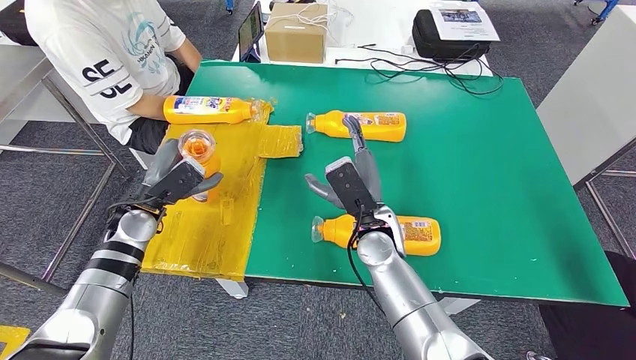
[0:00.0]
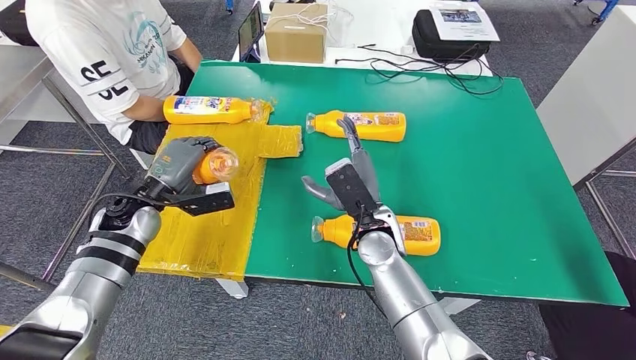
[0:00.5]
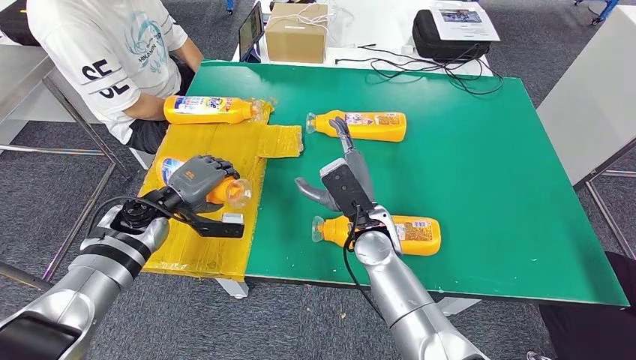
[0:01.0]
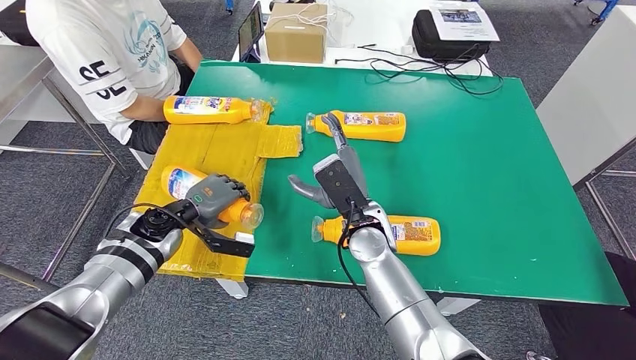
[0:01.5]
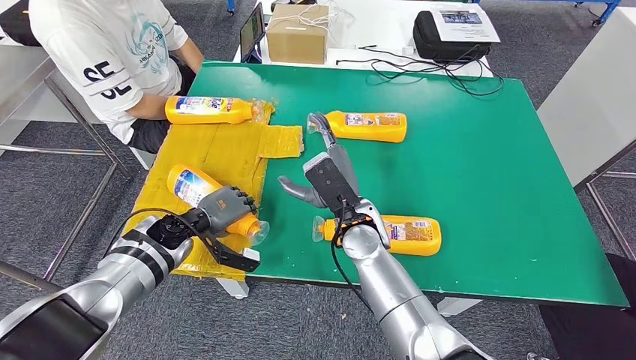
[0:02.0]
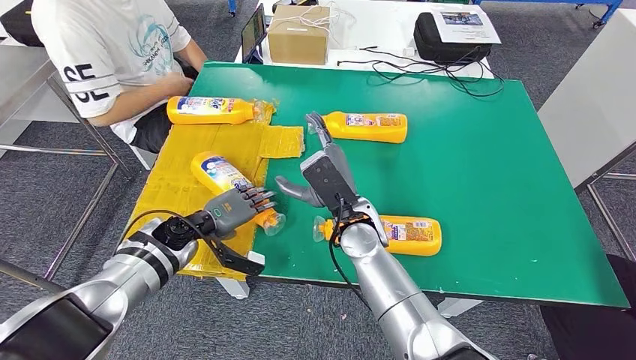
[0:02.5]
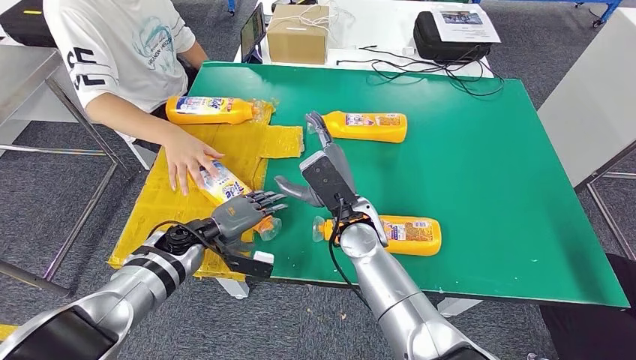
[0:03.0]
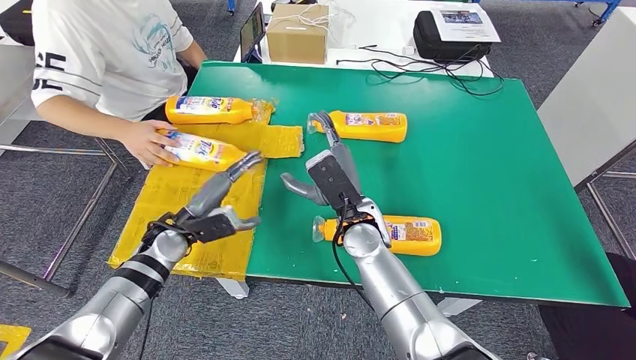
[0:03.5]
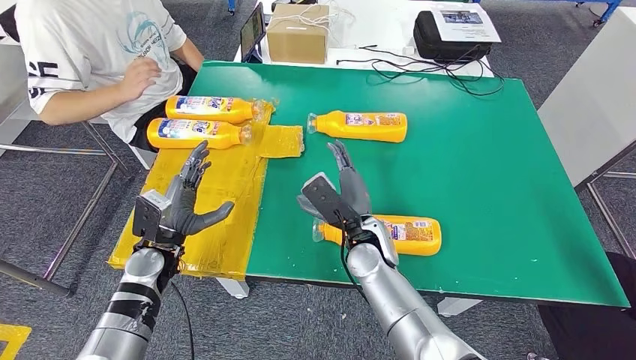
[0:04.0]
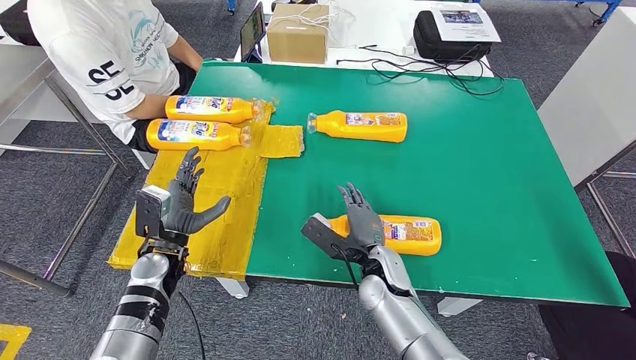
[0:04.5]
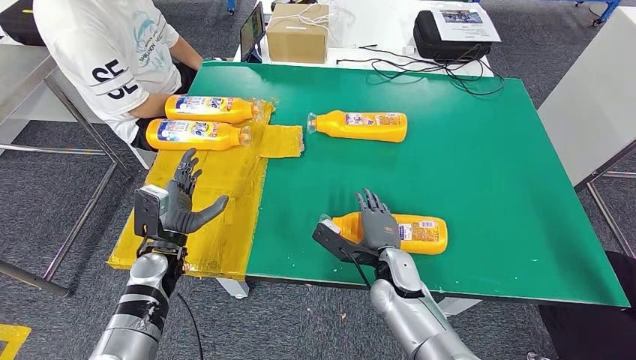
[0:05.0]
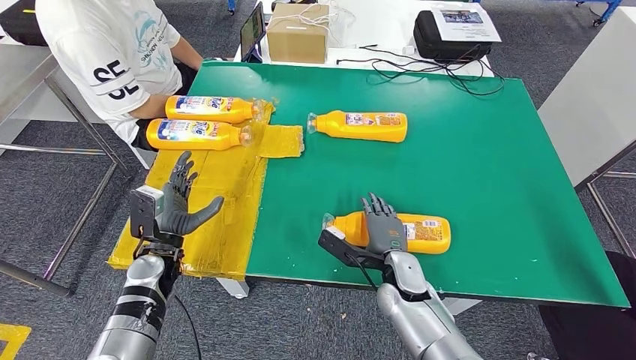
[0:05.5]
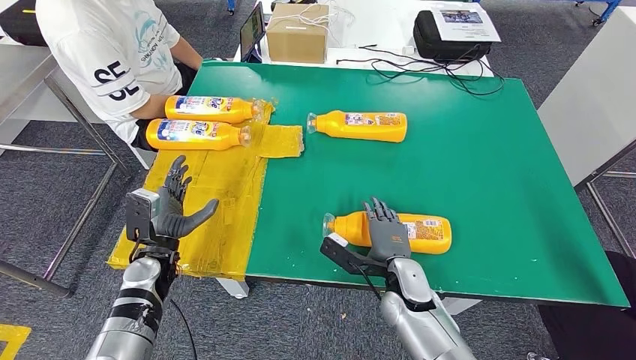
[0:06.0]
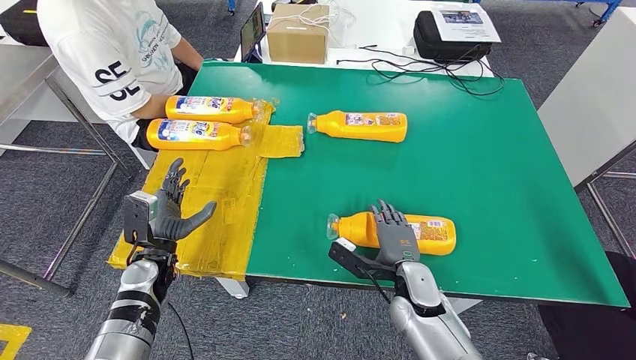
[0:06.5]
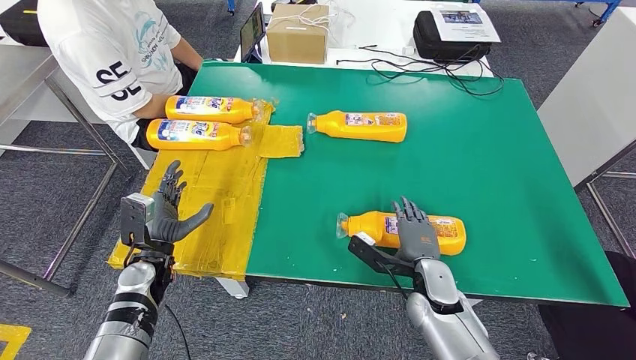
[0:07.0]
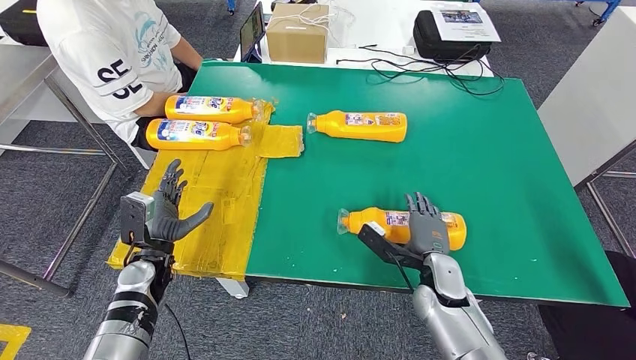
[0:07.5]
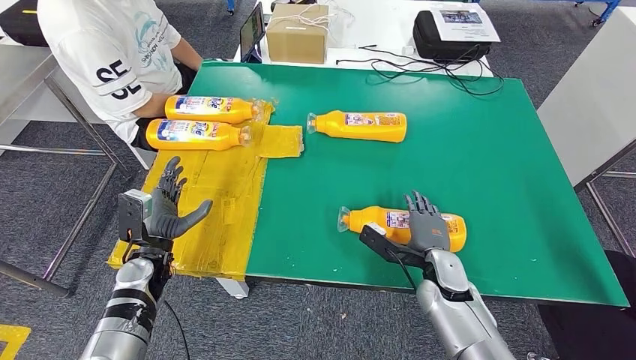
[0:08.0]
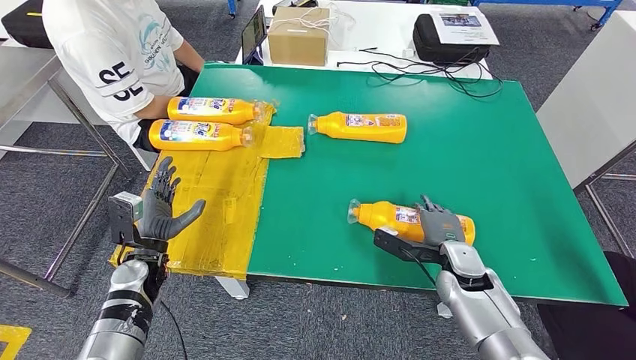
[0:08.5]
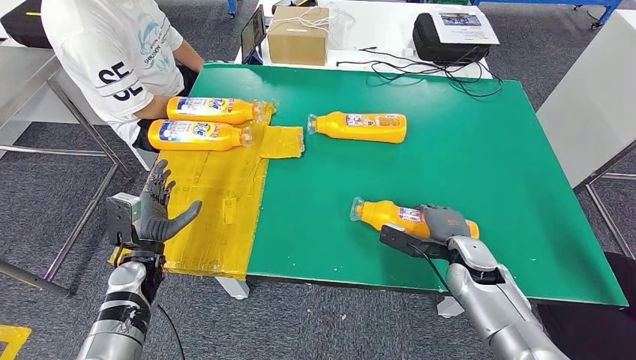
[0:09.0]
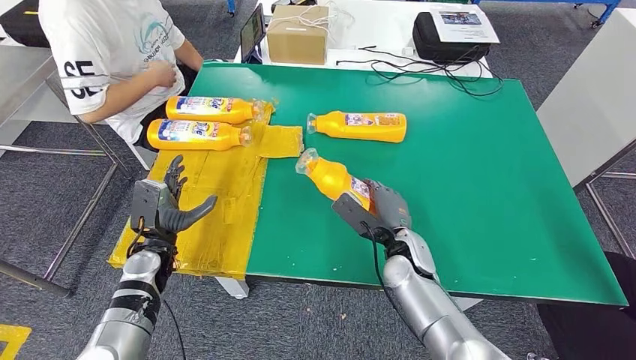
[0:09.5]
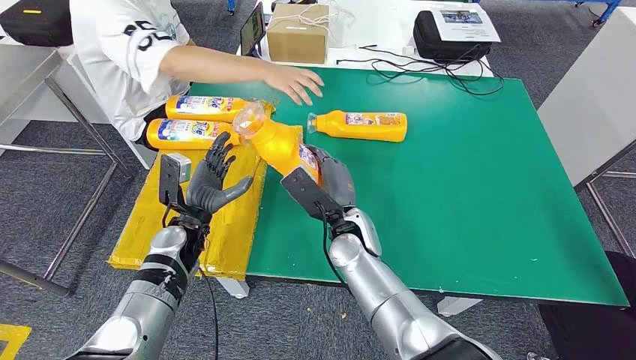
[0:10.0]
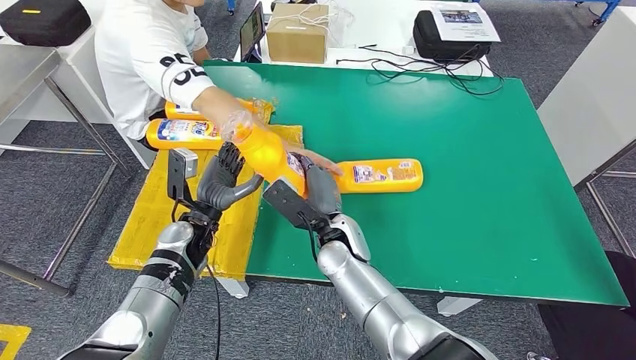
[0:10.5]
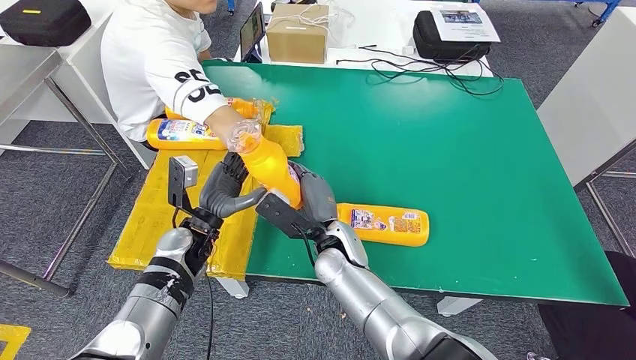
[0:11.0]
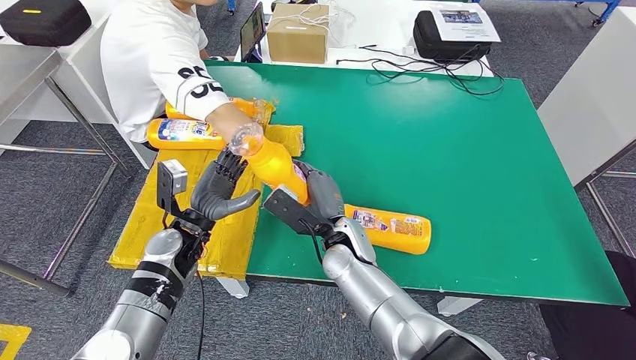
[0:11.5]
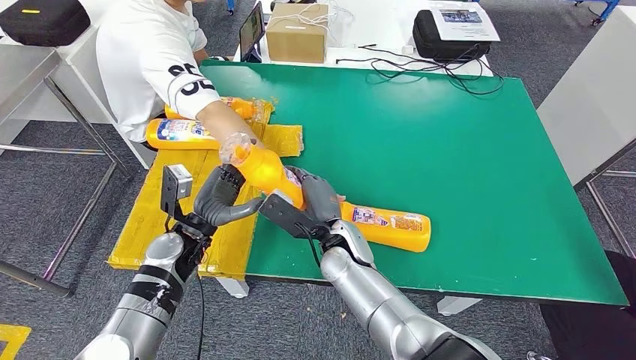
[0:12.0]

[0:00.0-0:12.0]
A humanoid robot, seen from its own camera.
Step, 0:02.0 to 0:10.0: Pick up the fast-moving consumer goods bottle from the table.
0:00.0 to 0:02.0: The left hand shifts about 5 cm downward.
0:02.0 to 0:04.0: The left hand shifts approximately 5 cm backward.
0:04.0 to 0:06.0: The right hand goes approximately 10 cm downward and to the right.
0:06.0 to 0:08.0: The right hand heads to the right, covering roughly 10 cm.

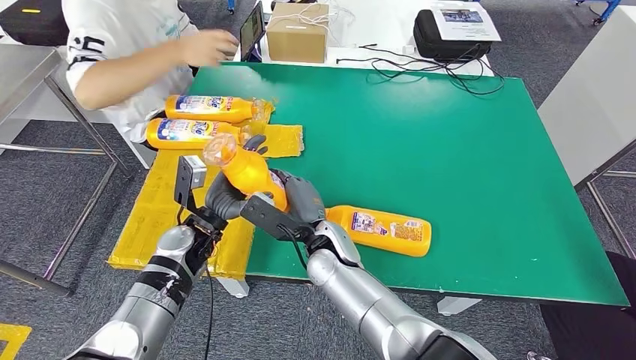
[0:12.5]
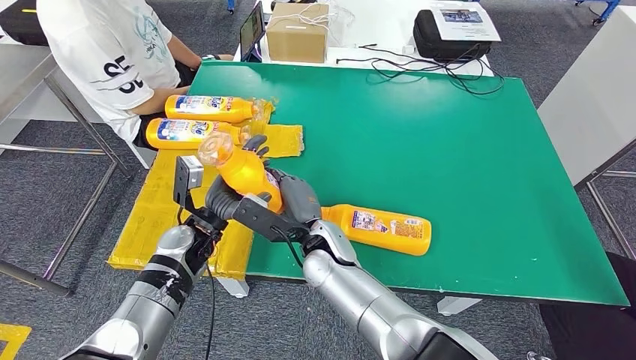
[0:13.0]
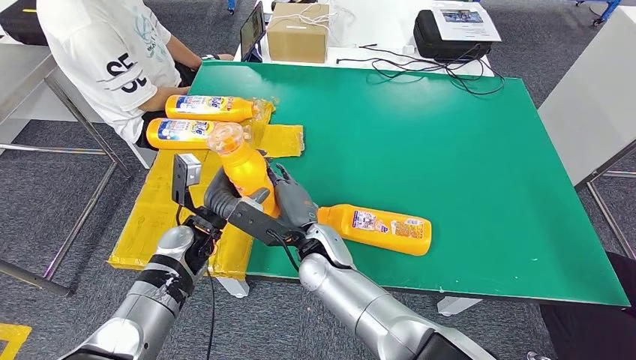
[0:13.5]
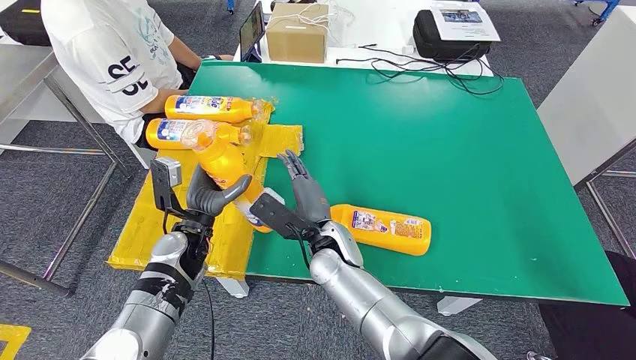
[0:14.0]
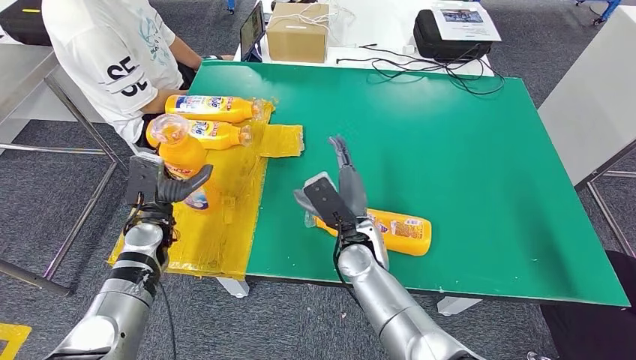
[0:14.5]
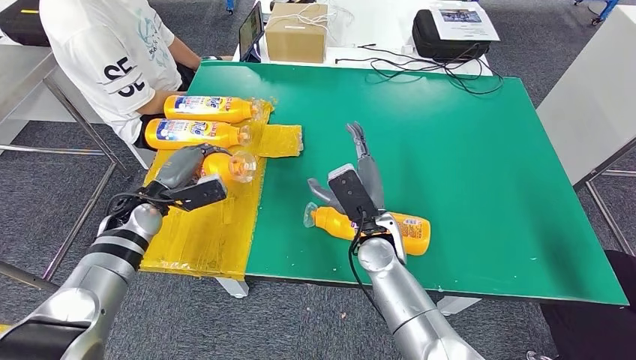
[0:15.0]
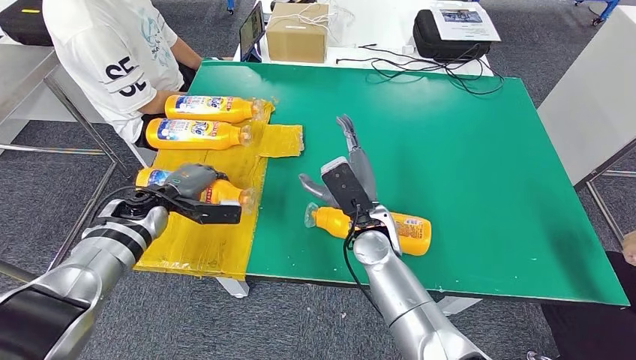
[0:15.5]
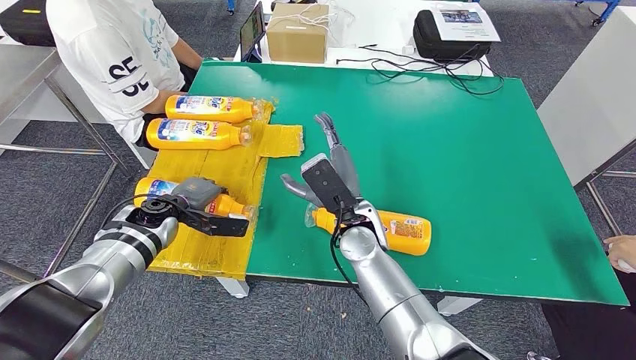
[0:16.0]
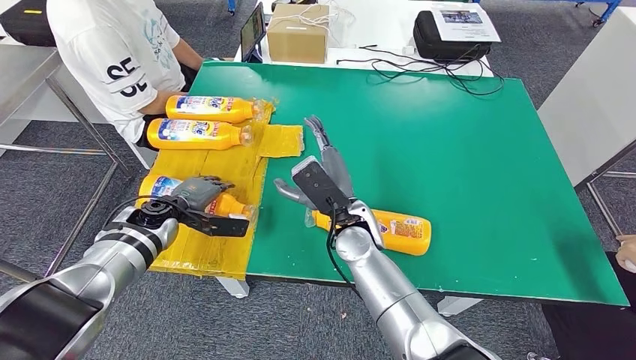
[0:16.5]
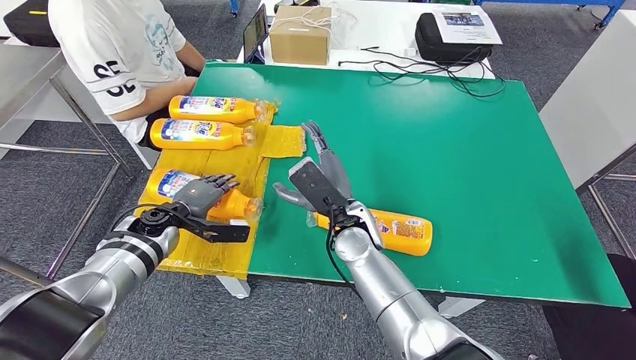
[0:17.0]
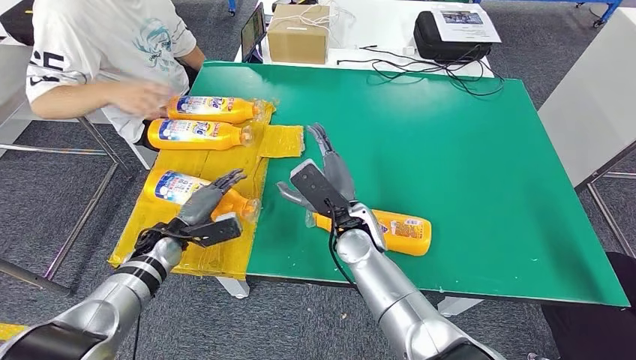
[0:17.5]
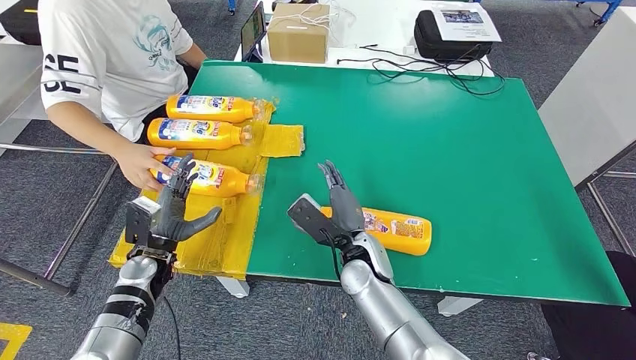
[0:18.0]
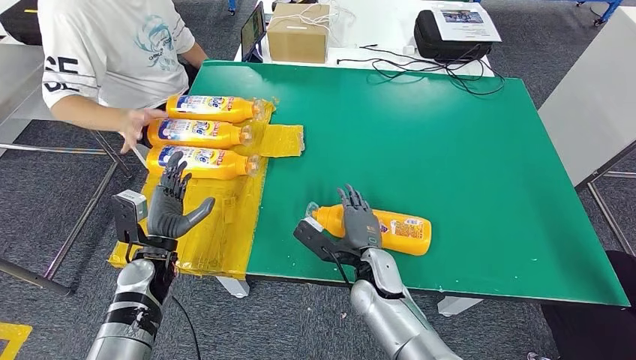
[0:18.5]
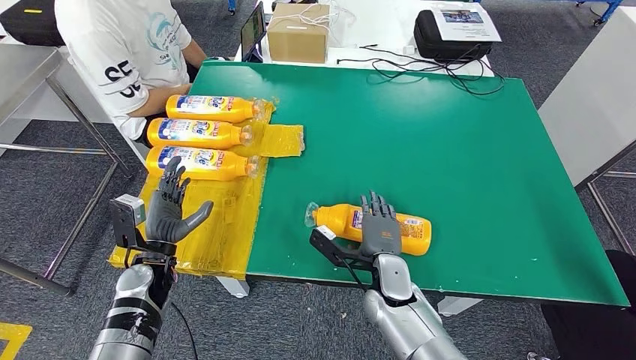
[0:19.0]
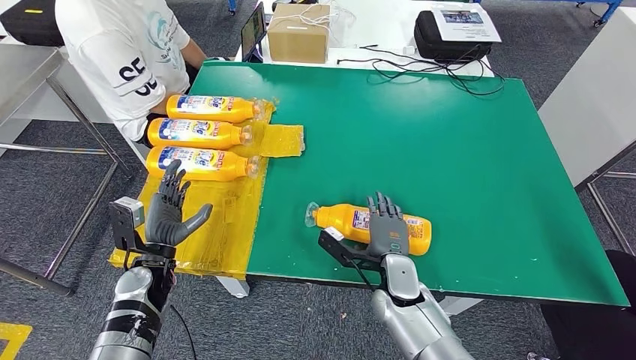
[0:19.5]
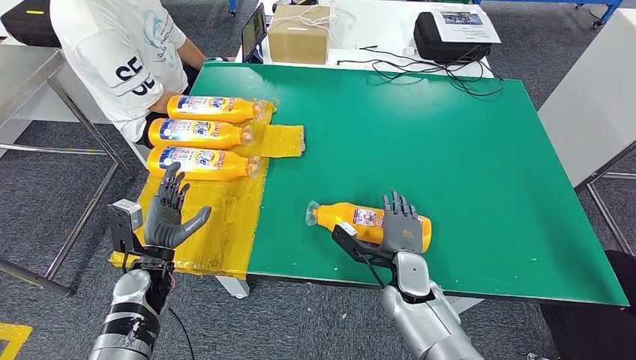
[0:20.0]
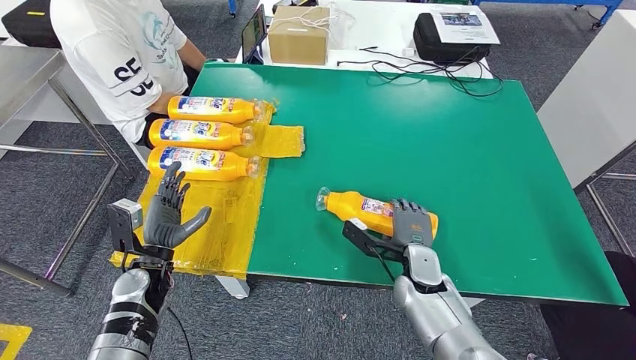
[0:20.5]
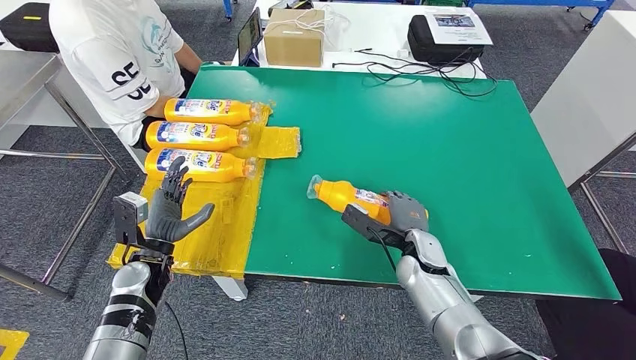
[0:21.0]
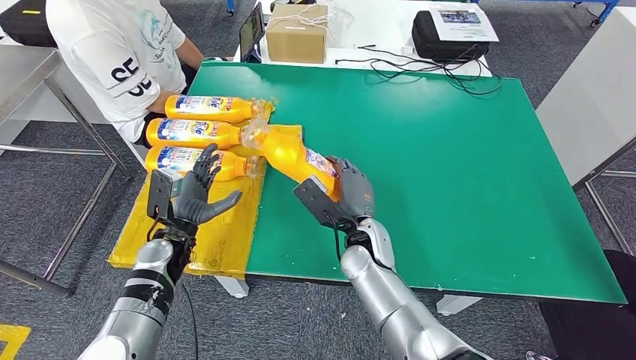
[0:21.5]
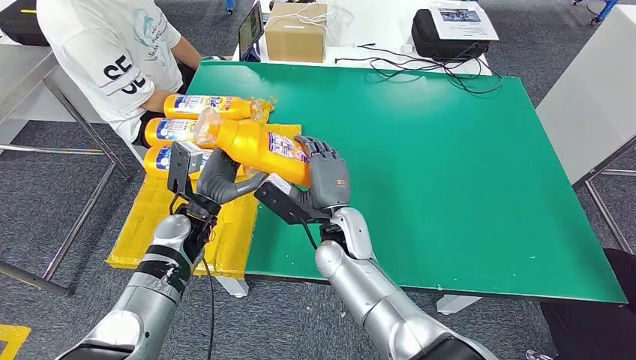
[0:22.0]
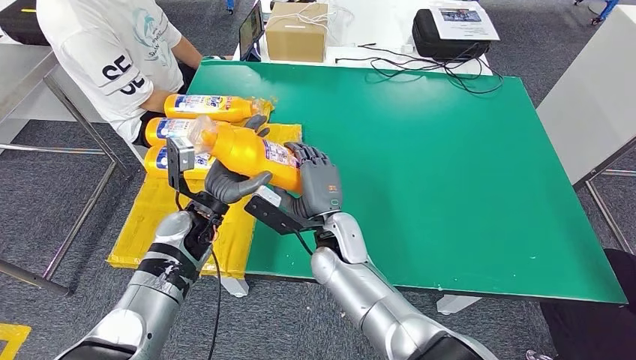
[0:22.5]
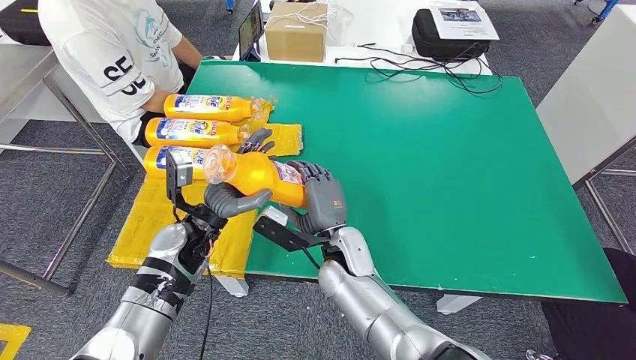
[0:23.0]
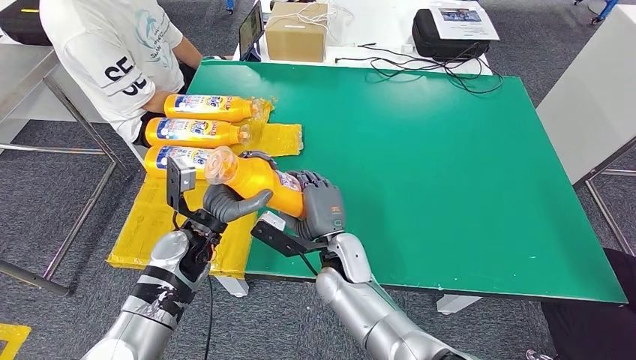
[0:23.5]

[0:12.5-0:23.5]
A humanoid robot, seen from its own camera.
Step, 0:12.5 to 0:15.5: Flip the fast-moving consumer goods bottle to the front side.
Step, 0:16.5 to 0:22.0: Pick up the fast-moving consumer goods bottle from the table.
0:18.0 to 0:20.0: The right hand heads to the right and downward, covering roughly 10 cm.
0:20.0 to 0:21.5: The left hand ends up roughly 5 cm from where it was, while the right hand heads to the left and upward, covering some 10 cm.
0:21.5 to 0:23.5: The left hand travels to the right by roughly 5 cm, while the right hand moves approximately 5 cm.
